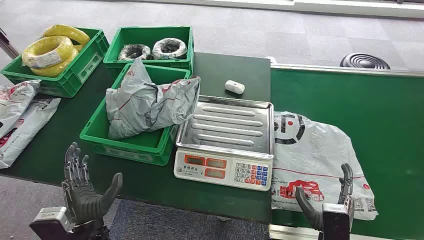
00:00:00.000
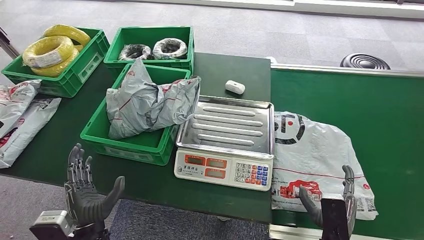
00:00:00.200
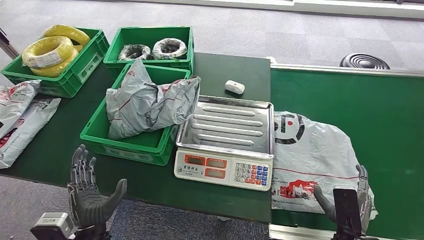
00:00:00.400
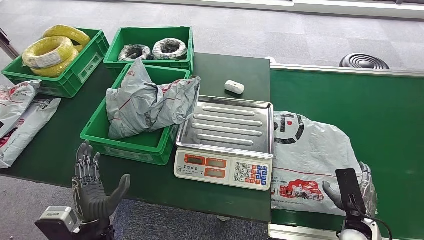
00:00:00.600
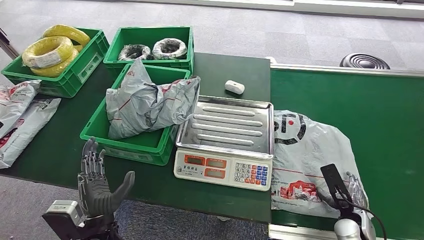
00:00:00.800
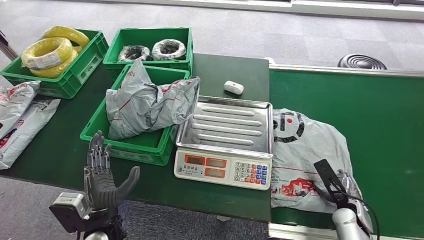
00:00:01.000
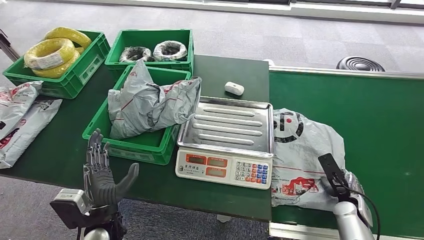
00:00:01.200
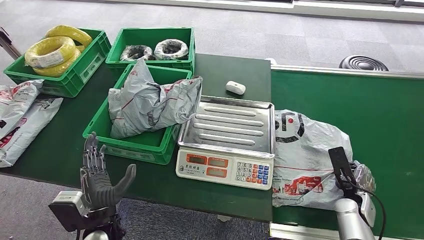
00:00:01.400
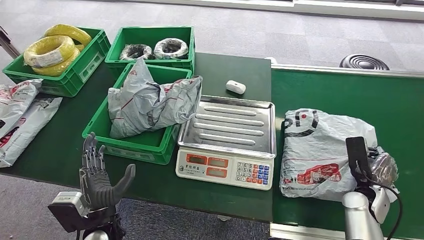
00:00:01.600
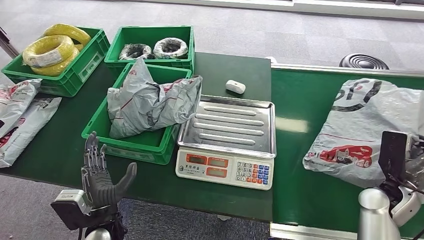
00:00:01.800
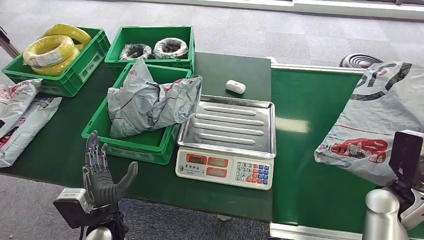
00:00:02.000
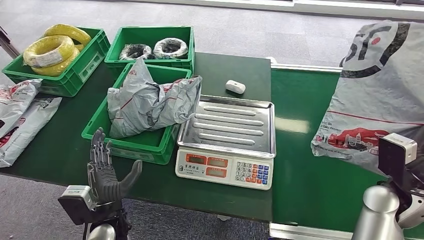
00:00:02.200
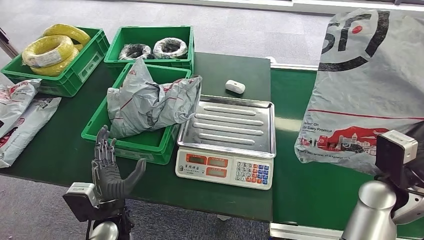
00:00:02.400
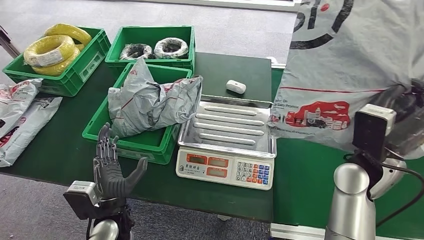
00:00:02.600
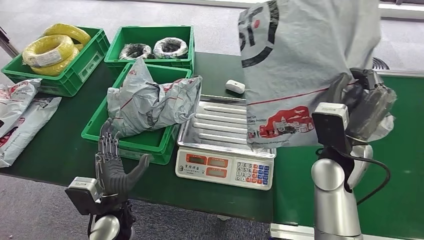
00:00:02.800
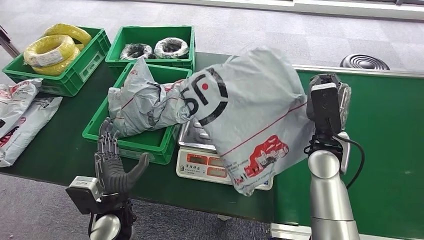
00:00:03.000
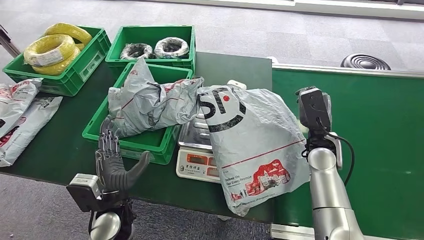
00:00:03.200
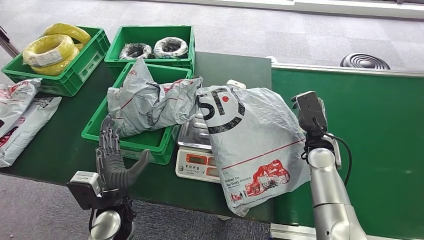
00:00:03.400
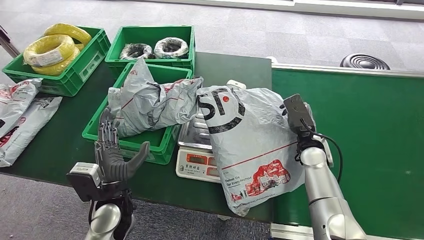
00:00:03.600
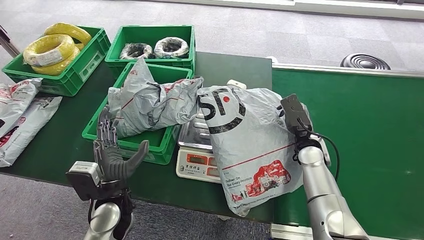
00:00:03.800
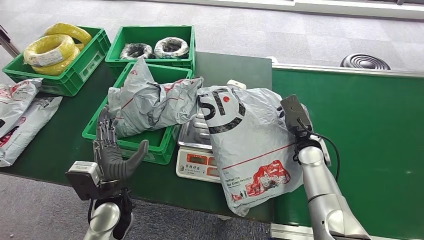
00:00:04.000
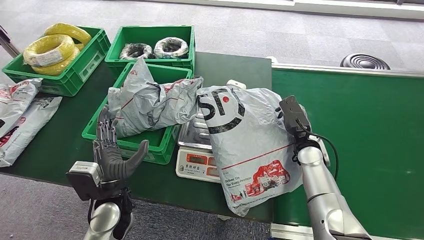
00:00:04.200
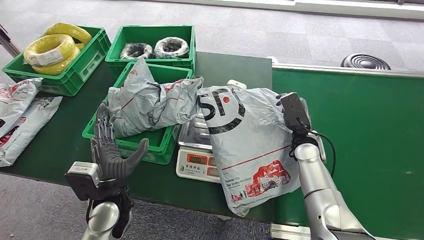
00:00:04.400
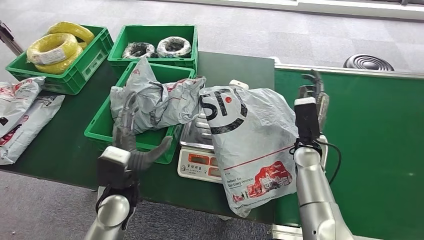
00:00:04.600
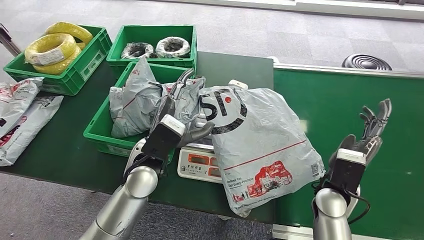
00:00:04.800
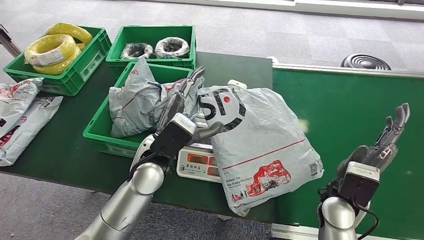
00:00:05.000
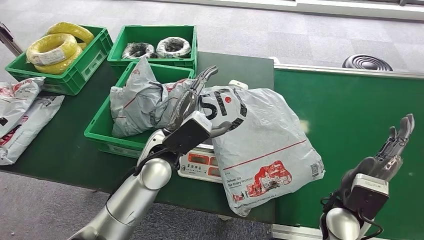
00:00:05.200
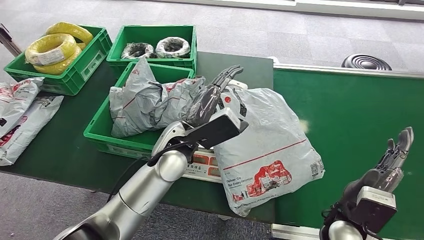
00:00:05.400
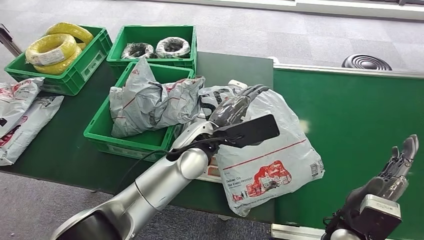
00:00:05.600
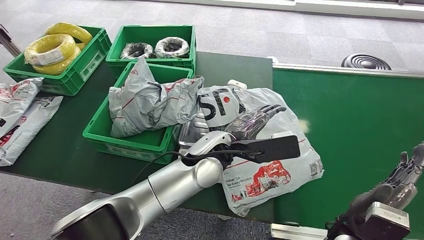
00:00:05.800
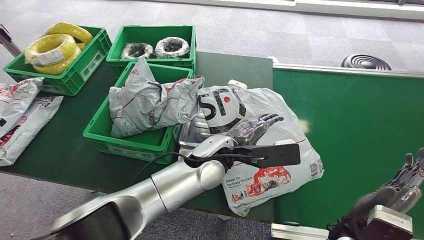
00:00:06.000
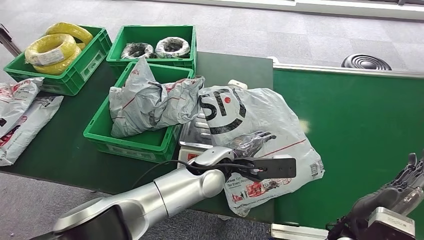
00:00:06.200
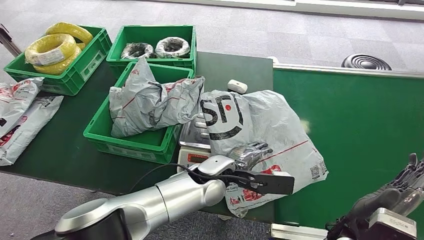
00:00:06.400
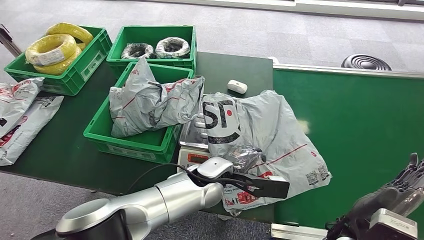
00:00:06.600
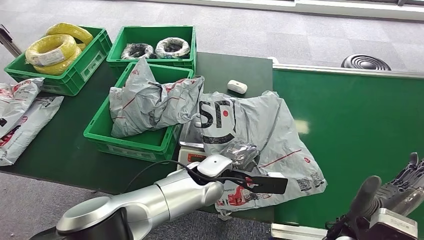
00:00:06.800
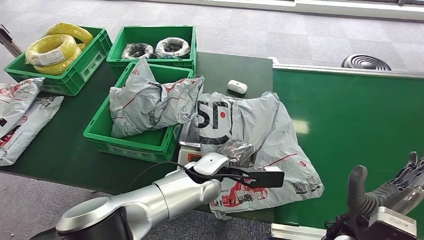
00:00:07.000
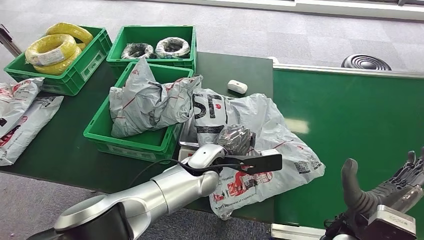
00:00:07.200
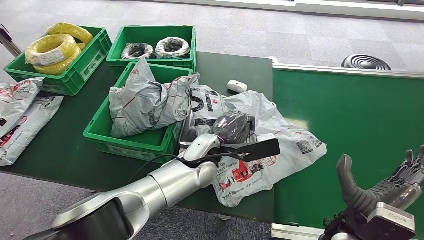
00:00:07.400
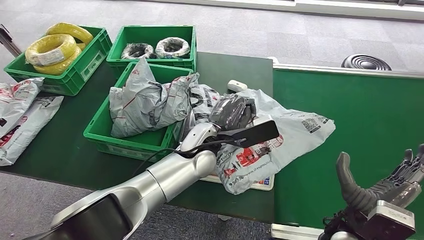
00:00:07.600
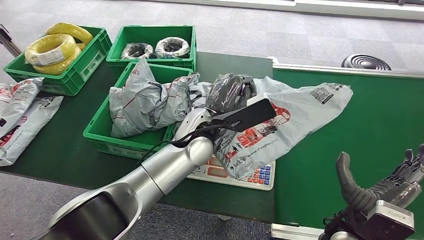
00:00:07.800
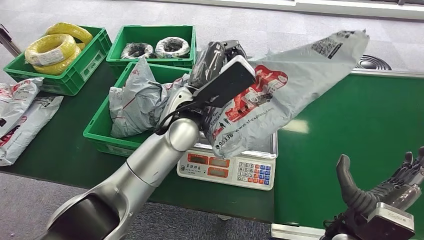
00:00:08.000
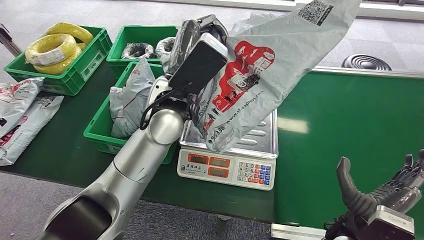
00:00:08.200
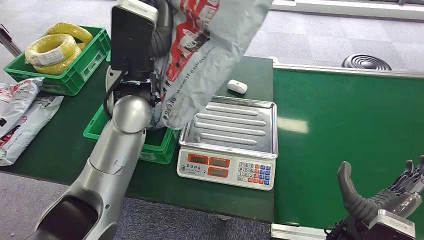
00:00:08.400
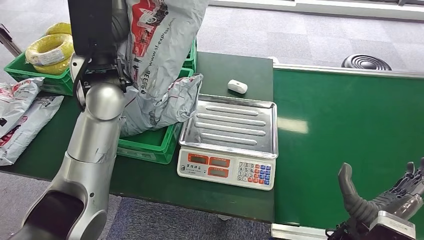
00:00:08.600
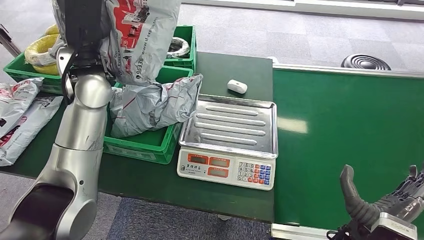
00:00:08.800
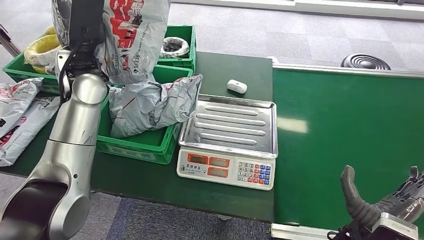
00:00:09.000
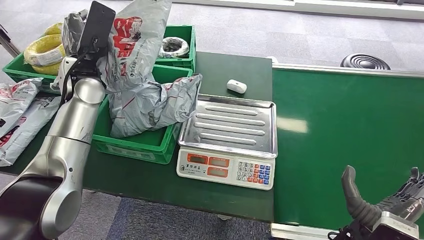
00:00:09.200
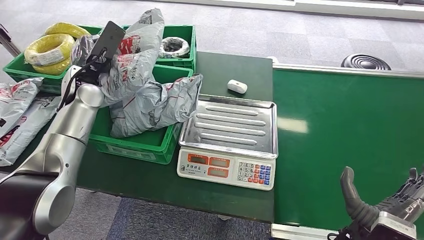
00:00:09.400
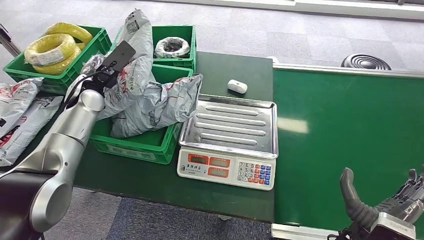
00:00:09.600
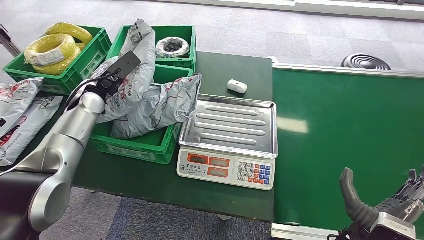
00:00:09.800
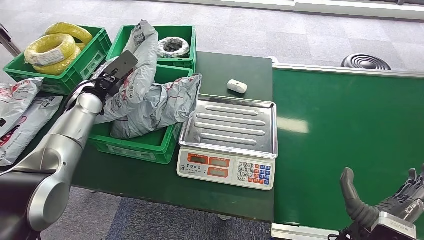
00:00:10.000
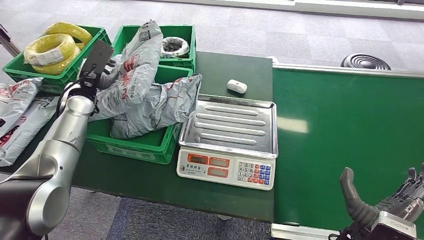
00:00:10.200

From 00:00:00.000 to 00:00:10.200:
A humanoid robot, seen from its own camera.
Step, from 00:00:00.000 to 00:00:01.800: Pick up the package from the conveyor belt.
Step, from 00:00:02.200 to 00:00:05.200: Place the package onto the inbound machine.
Step, from 00:00:05.400 to 00:00:08.400: Pick up the package from the inbound machine.
Step, from 00:00:08.600 to 00:00:10.200: Place the package into the parcel locker.
From 00:00:05.800 to 00:00:07.200: The left hand is displaced downward by some 5 cm.
